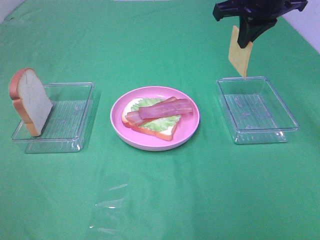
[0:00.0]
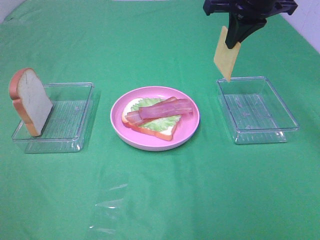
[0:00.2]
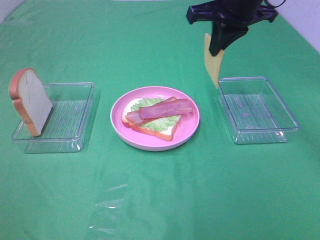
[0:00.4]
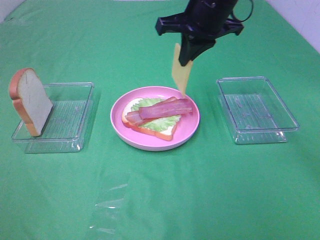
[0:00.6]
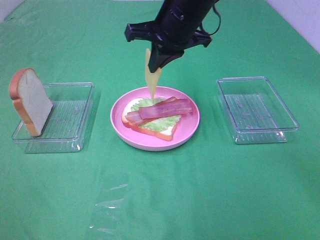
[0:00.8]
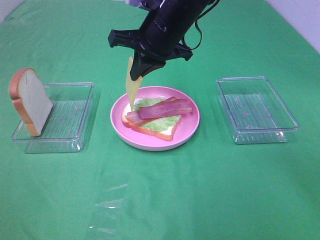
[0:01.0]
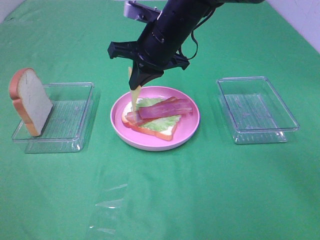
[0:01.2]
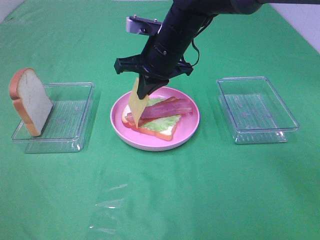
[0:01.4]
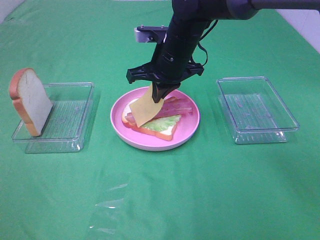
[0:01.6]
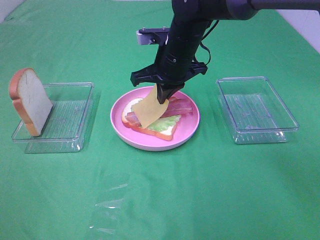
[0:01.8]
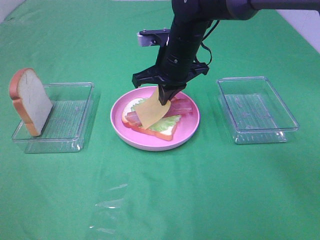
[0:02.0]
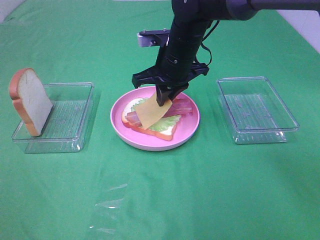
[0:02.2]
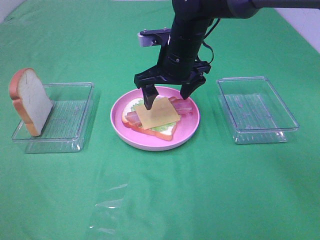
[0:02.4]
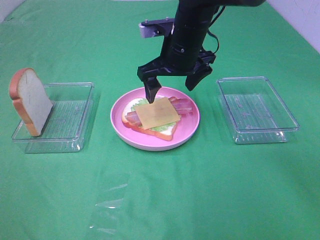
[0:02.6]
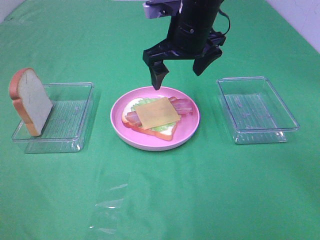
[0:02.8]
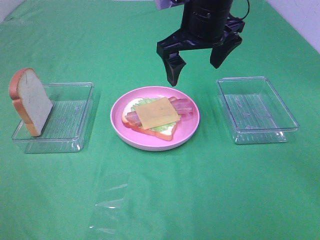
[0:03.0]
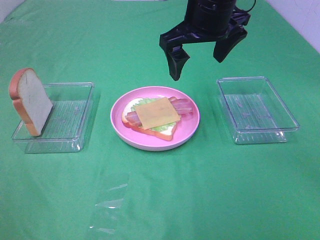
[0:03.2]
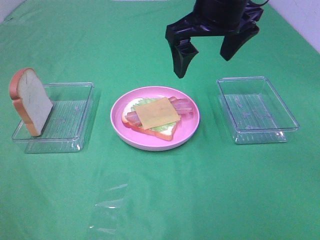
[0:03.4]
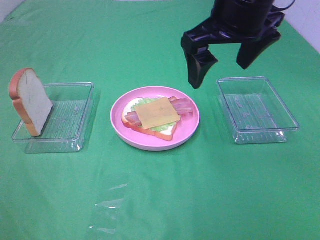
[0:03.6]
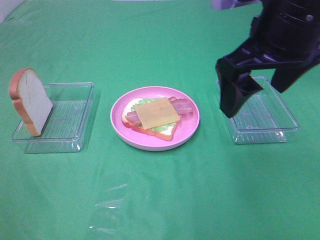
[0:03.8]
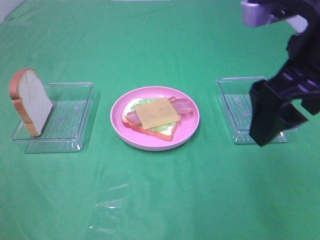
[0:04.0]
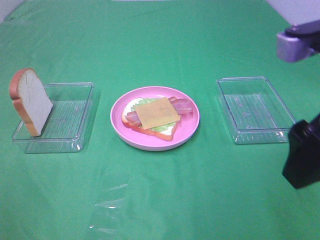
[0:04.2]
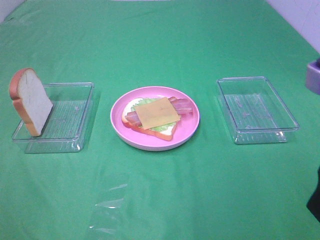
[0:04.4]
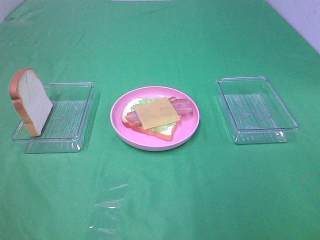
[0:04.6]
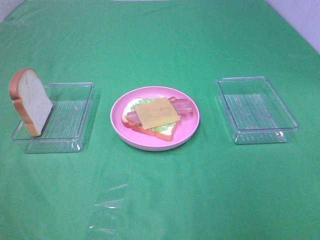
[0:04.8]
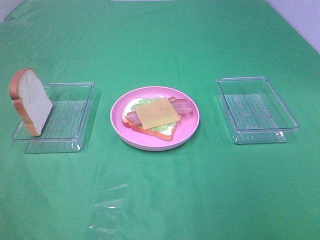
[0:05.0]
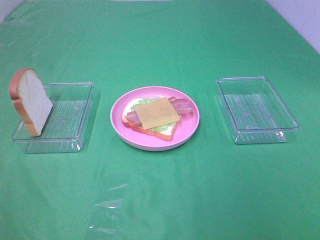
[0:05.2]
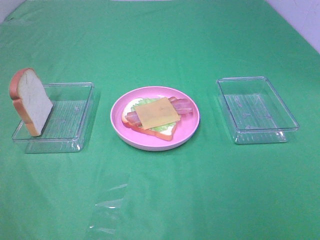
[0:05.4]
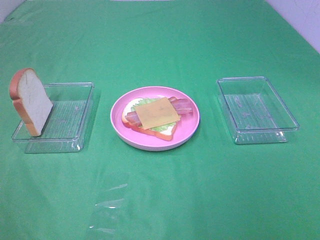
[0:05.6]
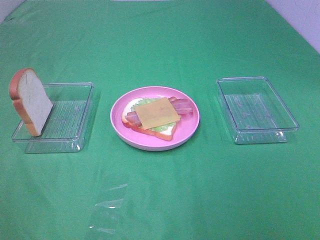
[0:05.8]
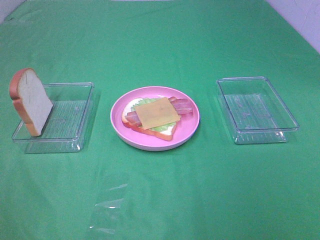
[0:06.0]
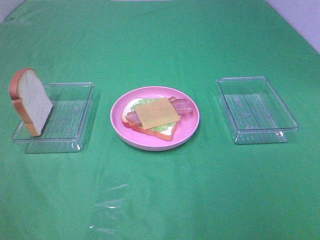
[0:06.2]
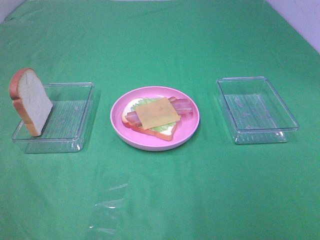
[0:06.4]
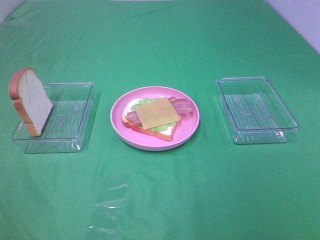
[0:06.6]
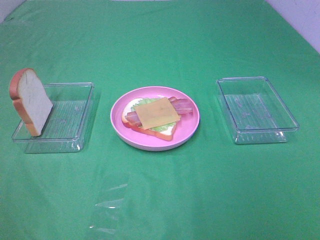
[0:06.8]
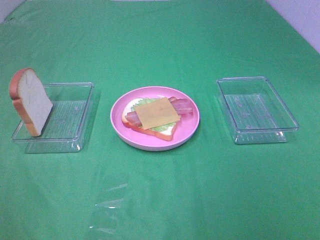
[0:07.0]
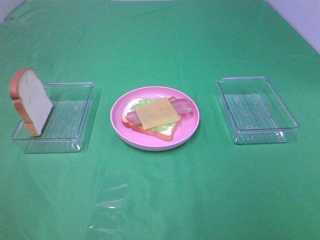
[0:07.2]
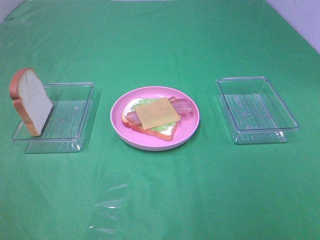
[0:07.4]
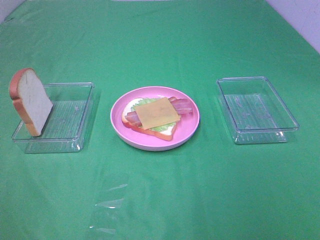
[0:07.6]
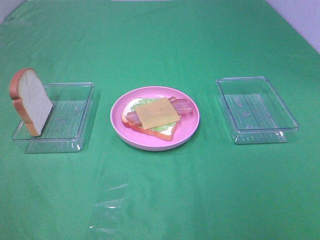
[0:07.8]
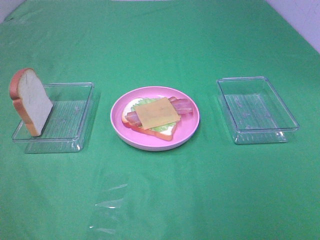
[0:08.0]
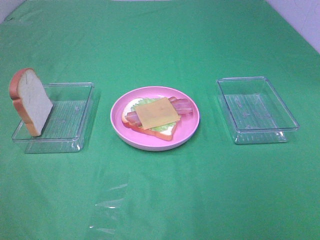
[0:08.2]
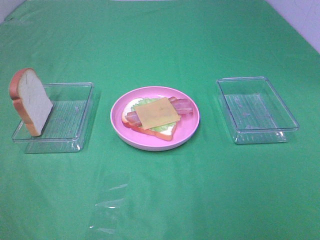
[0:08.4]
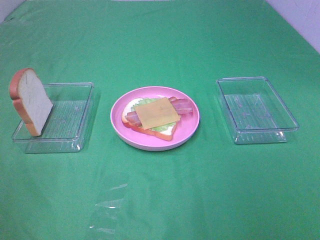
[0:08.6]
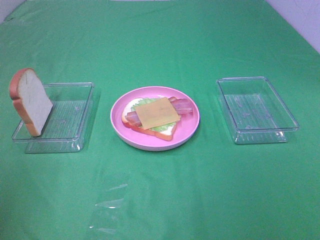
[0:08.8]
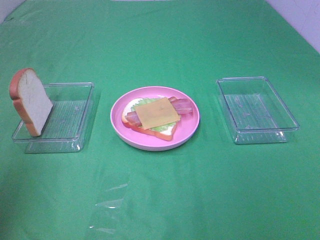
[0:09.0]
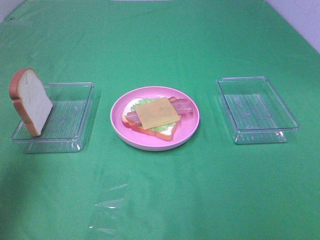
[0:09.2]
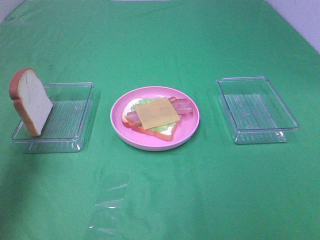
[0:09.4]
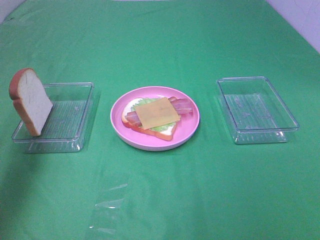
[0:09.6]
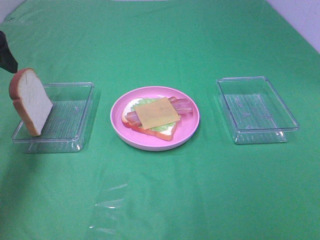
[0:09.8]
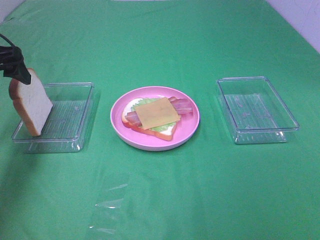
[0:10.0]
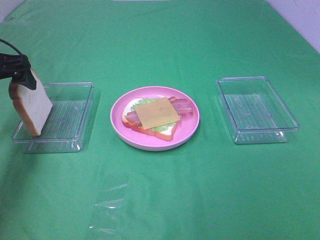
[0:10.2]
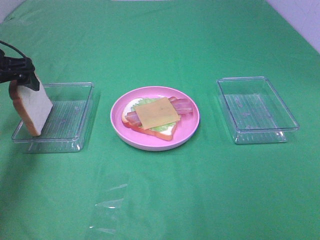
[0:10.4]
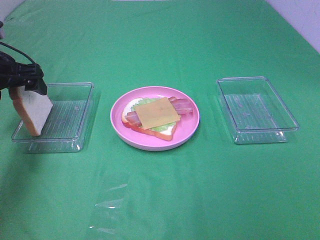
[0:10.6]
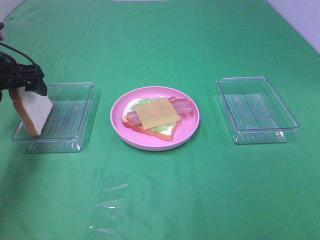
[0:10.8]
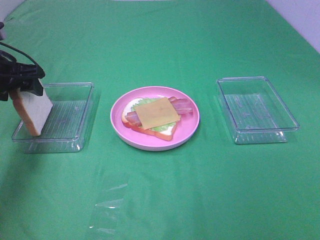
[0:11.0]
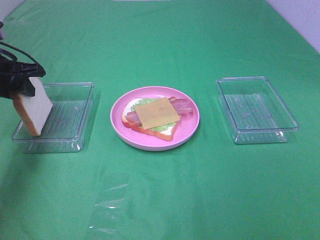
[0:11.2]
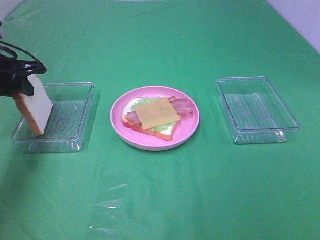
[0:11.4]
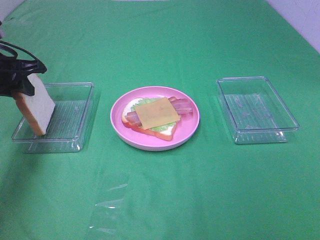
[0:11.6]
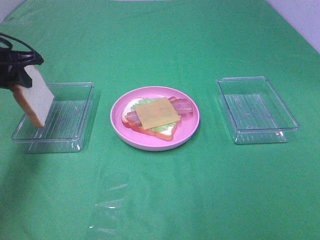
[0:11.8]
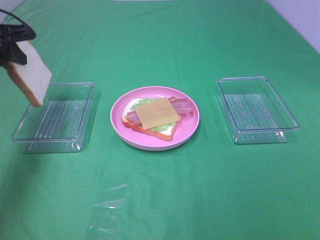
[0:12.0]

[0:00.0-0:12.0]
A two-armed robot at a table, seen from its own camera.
Task of the whole recording: Make sandwiches.
Step, 0:00.0 to 0:02.4: Right hand:place the cheese slice on top of the bacon.
Step, 0:02.6 to 0:11.4: Left hand:grab the bread slice.
0:00.0 to 0:01.6: The right gripper shifts some 20 cm to the left and downward.
0:01.6 to 0:03.0: The right gripper heads upward, covering about 10 cm, and opens up.
0:03.0 to 0:04.4: The right gripper travels backward and to the right by about 30 cm.
0:04.4 to 0:06.0: The right gripper is displaced backward and to the right by some 15 cm.
0:06.0 to 0:07.6: The two grippers keep their place.
0:07.6 to 0:09.0: The left gripper goes some 15 cm forward and upward.
0:09.0 to 0:10.4: The left gripper is displaced forward and downward by approximately 25 cm.
0:10.4 to 0:12.0: The left gripper shifts approximately 5 cm upward, and closes its fingers.

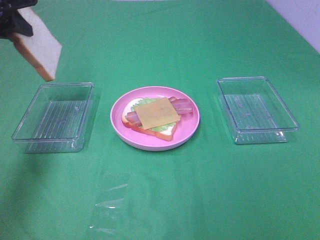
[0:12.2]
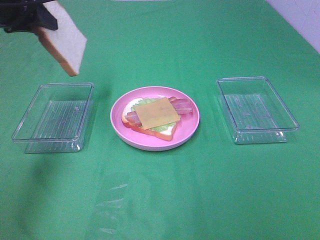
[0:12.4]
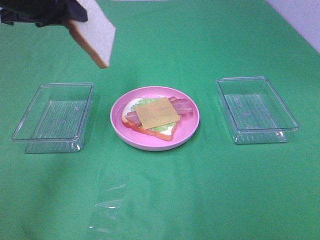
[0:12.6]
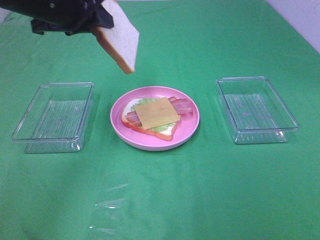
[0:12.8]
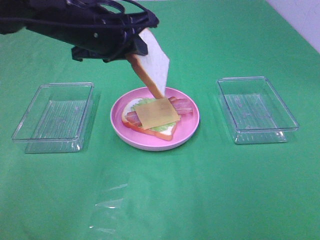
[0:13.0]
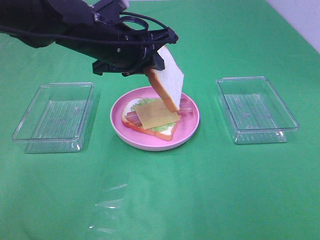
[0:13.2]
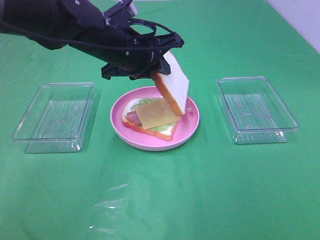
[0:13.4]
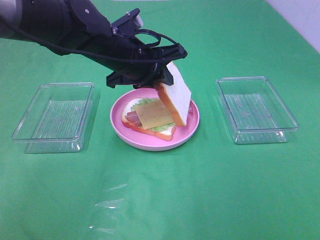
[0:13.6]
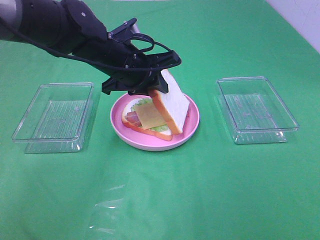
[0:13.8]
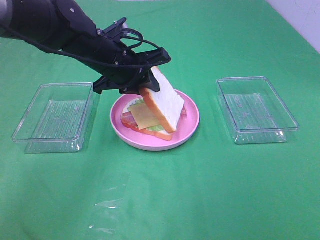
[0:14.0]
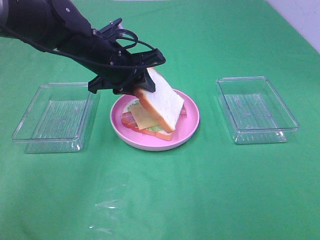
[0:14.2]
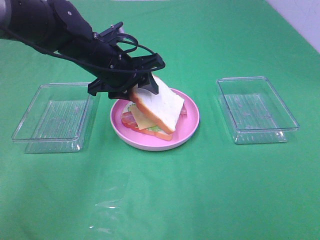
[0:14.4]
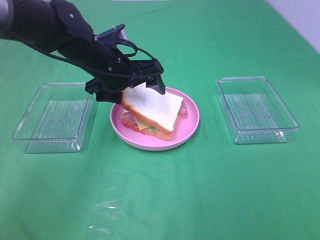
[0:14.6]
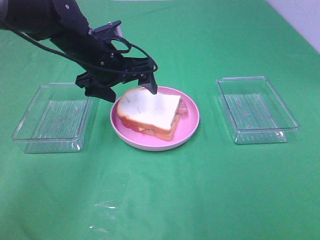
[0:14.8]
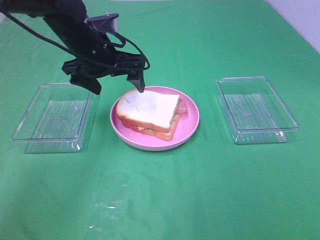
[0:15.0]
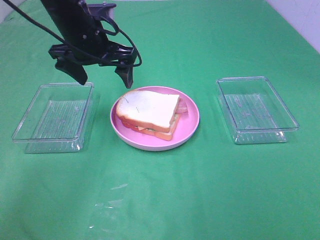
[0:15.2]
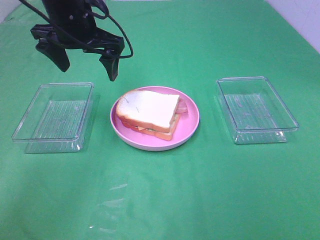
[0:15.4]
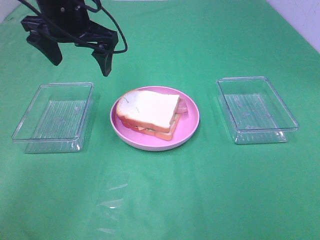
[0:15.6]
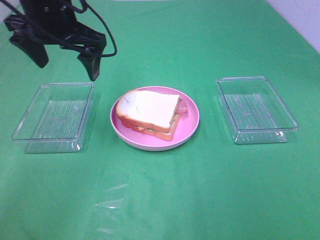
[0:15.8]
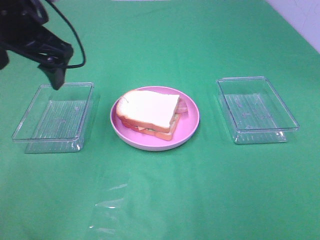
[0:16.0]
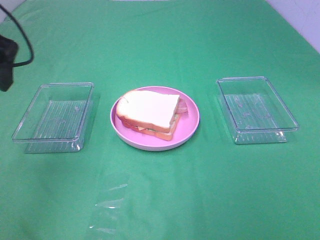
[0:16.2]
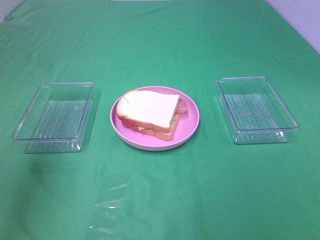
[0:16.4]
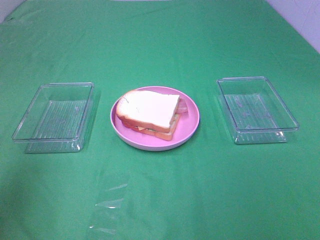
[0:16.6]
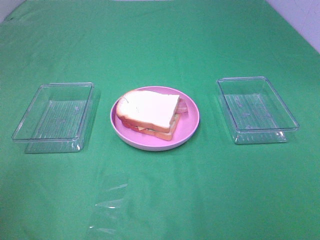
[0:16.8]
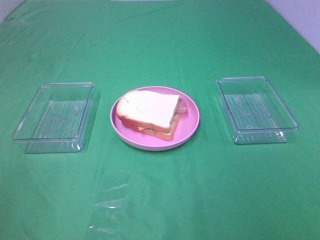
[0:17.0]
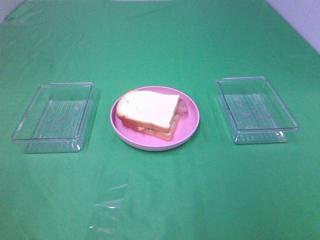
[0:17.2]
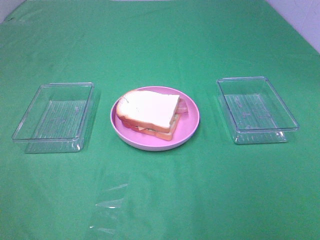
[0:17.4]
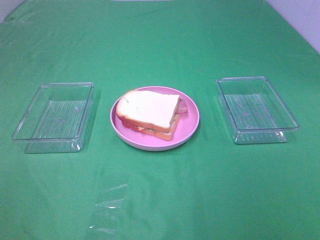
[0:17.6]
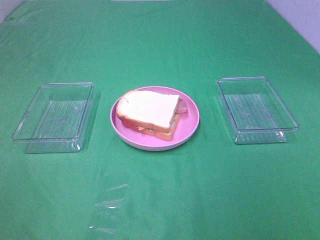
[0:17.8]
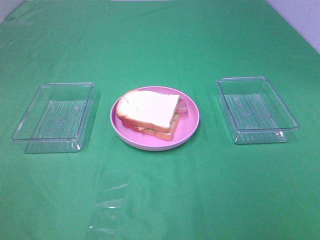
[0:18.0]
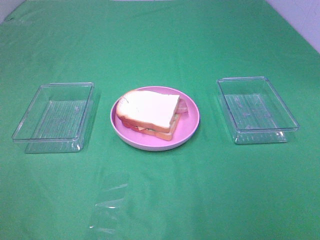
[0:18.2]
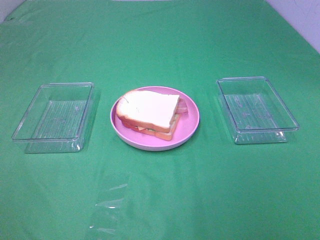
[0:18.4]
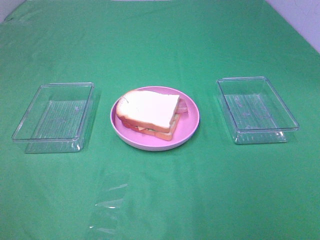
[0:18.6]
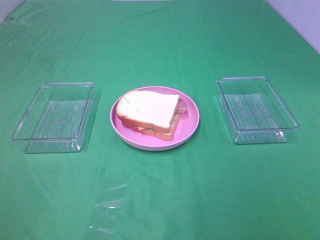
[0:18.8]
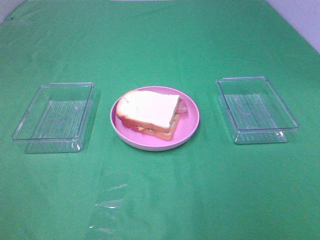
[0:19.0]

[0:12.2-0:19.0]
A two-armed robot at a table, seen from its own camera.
Task of the whole recording: Make sandwiches.
Step, 0:12.2 to 0:14.8: Left hand:place the bread slice on the cheese slice.
0:12.2 to 0:13.6: The left gripper goes roughly 25 cm to the right and downward.
0:13.6 to 0:15.0: The left gripper shifts roughly 5 cm to the left, and opens its fingers.
0:15.0 to 0:16.2: The left gripper travels to the left, backward and upward by roughly 20 cm.
0:16.2 to 0:17.6: The left gripper shifts some 25 cm backward.

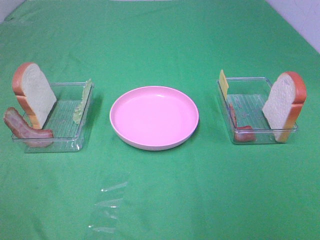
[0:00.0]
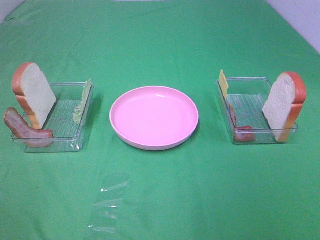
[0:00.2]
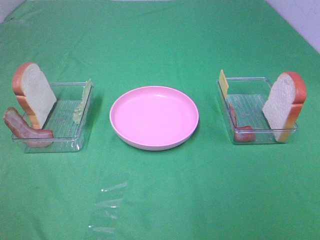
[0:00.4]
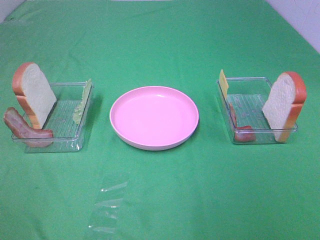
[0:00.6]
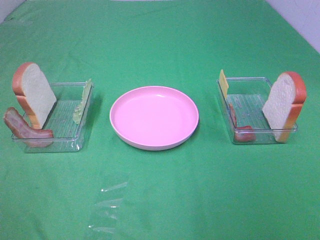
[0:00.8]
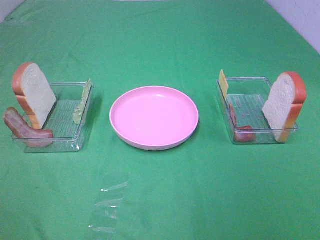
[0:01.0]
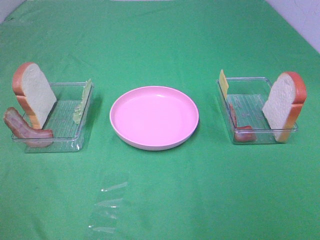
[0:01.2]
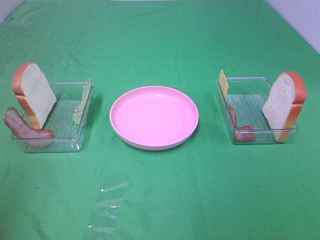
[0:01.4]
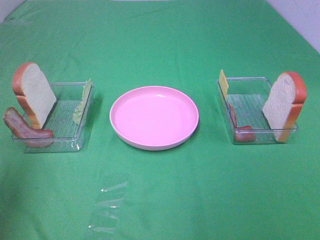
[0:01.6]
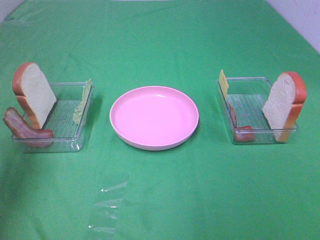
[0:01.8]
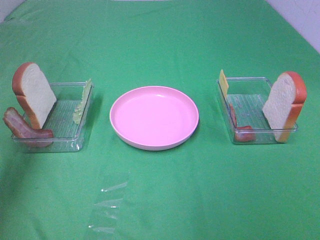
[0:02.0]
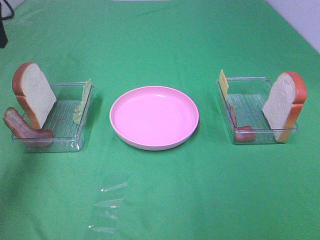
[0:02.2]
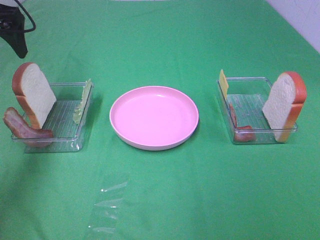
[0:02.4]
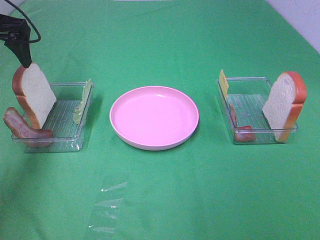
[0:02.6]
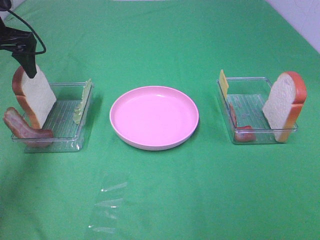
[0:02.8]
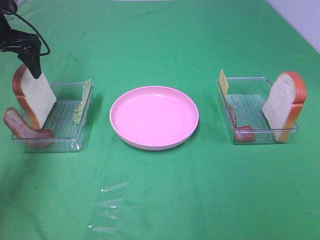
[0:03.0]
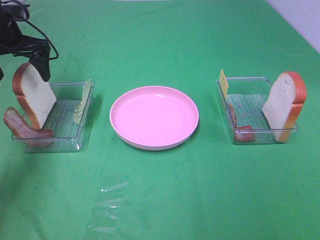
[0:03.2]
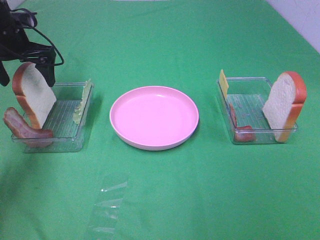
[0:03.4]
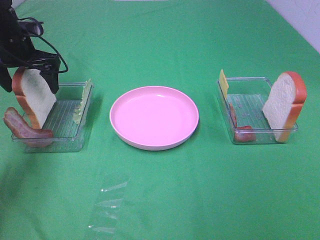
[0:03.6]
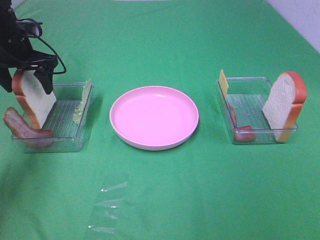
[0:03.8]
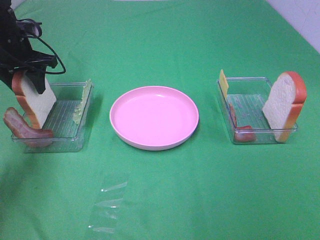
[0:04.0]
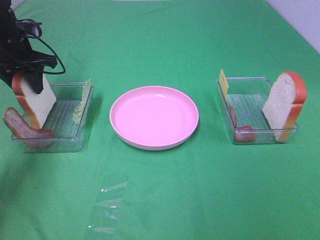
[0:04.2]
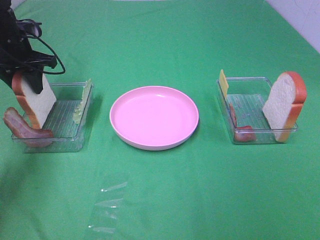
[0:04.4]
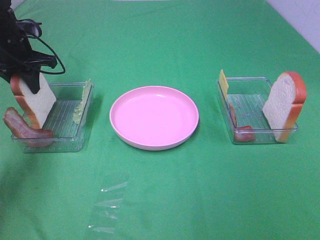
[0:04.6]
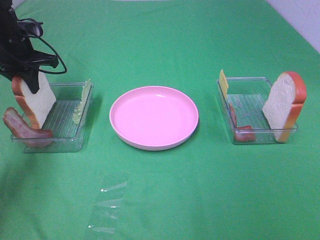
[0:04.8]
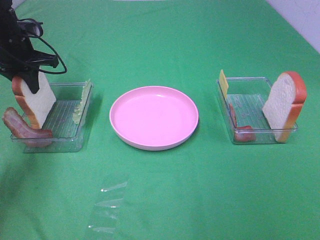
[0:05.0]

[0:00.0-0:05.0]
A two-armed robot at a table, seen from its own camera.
Task of the whole recording: Make sandwiches.
Step, 0:00.0 to 0:04.8: Left hand:grab the bread slice.
0:00.0 to 0:01.6: The left gripper shifts roughly 20 cm forward.
0:01.6 to 0:03.4: The left gripper travels forward and downward by approximately 35 cm.
0:03.4 to 0:05.0: The left gripper closes its fingers.
